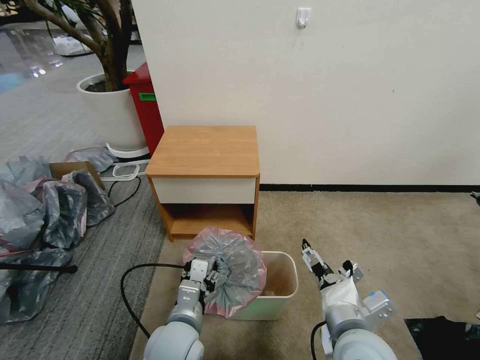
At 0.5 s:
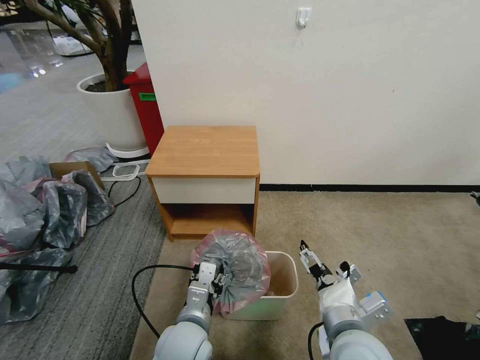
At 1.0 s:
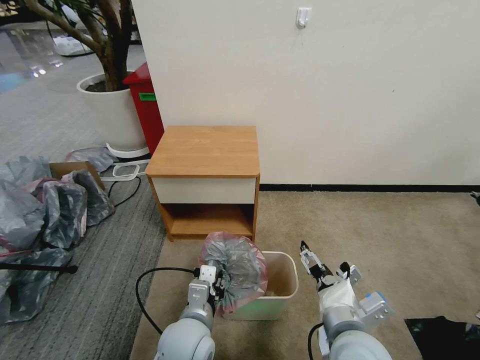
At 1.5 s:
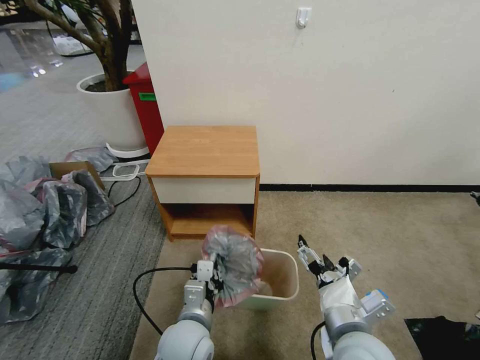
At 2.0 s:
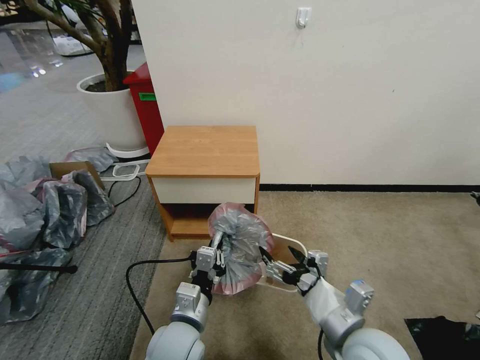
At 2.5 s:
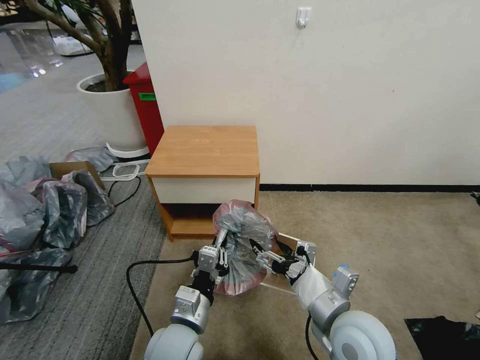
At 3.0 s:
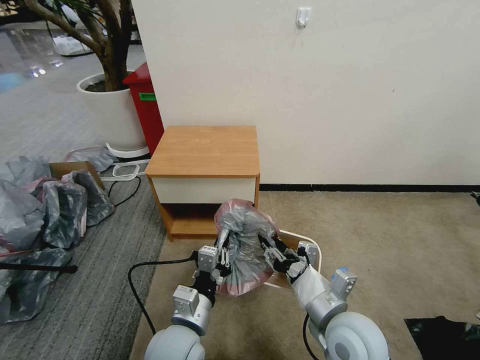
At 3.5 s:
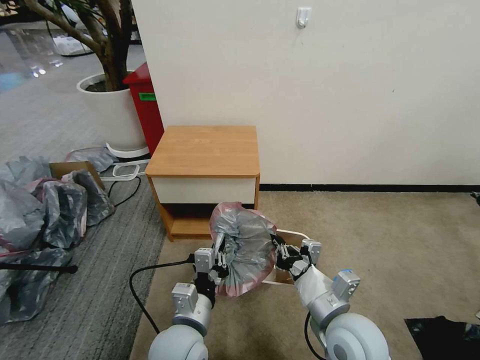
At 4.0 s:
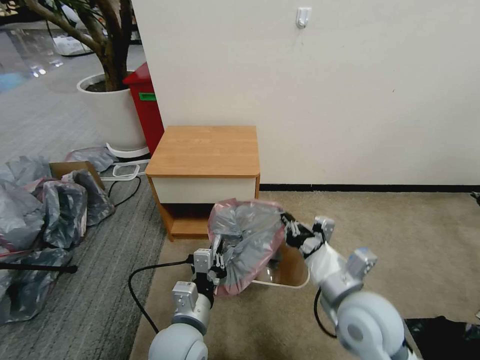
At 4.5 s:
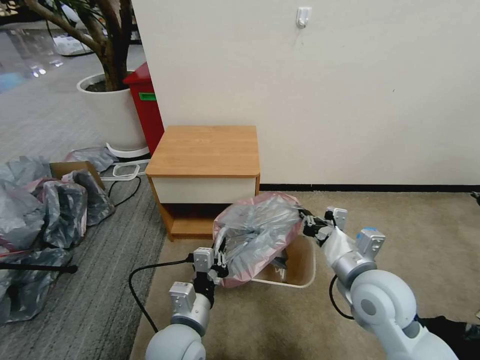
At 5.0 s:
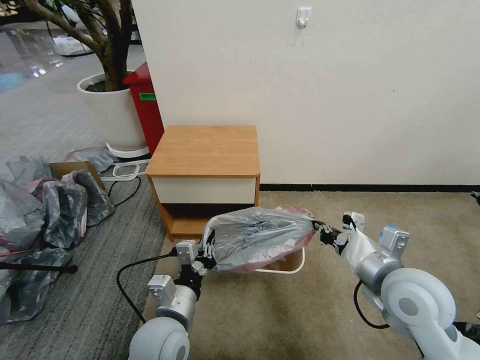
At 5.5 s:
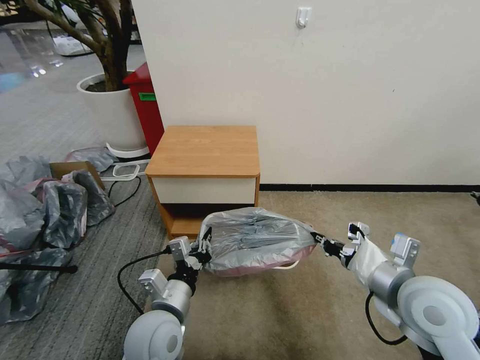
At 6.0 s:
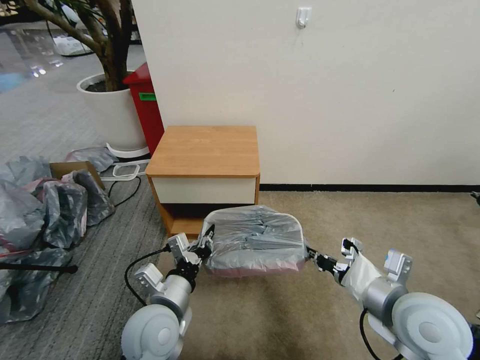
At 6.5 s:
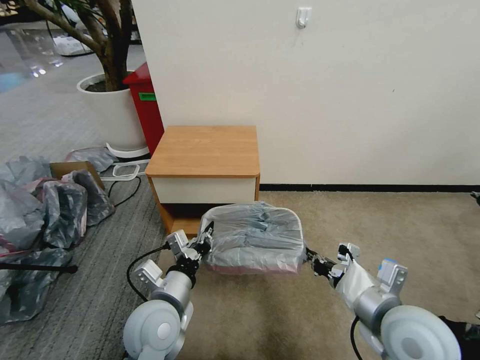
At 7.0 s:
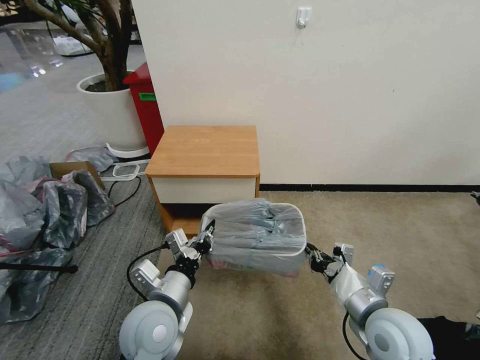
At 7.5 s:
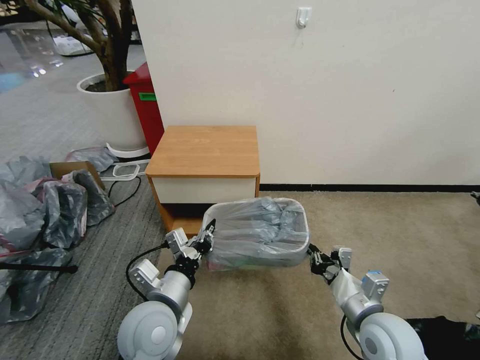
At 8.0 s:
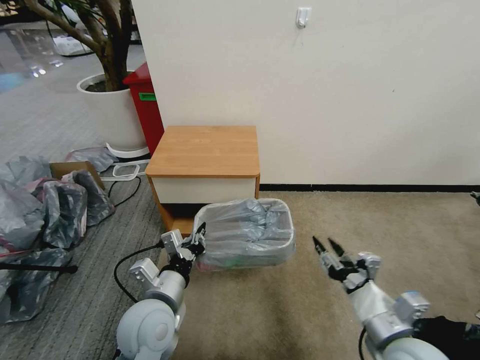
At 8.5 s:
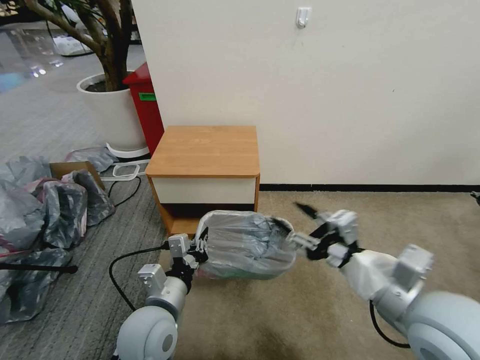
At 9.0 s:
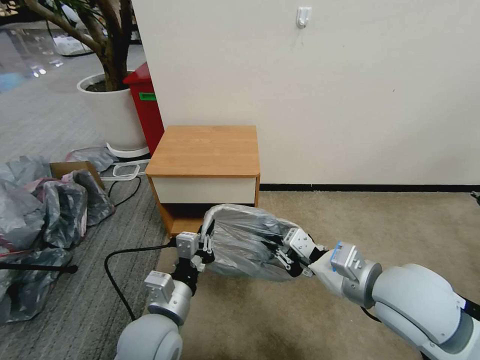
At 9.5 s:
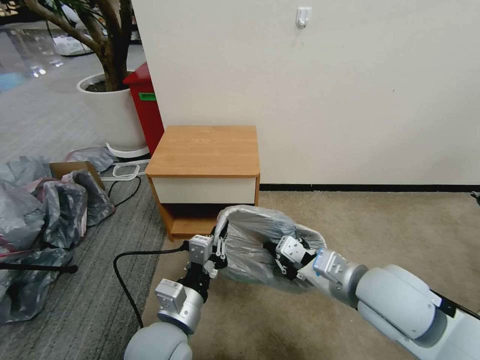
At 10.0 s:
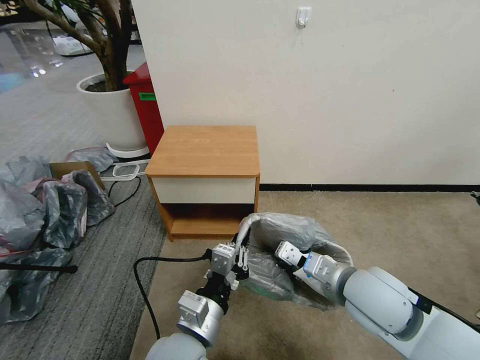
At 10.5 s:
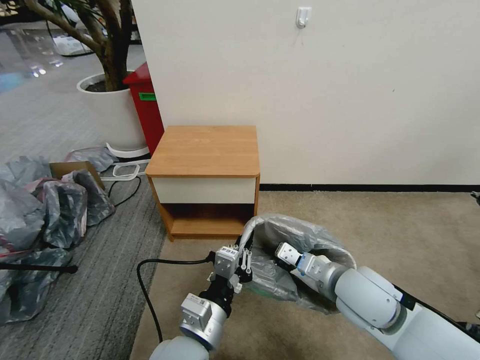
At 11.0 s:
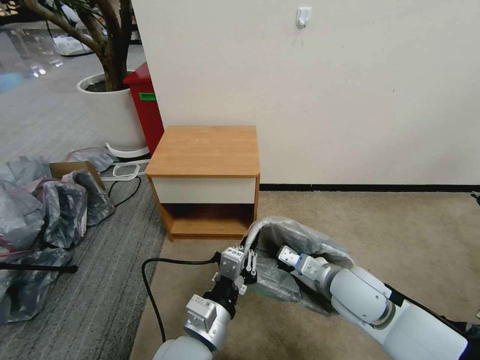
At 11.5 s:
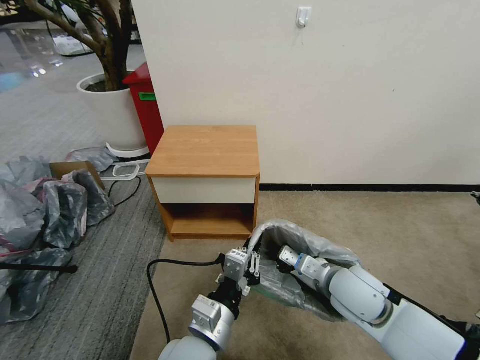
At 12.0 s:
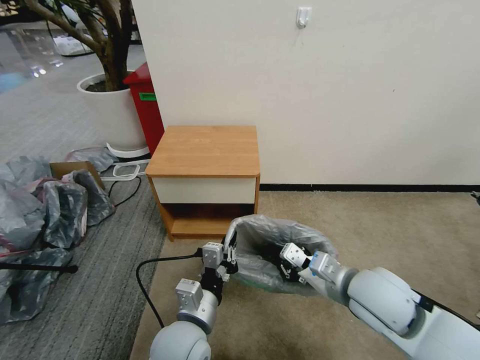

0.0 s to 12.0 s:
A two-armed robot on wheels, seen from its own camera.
Task of the whole recording: Pick up the garbage bag from the table and place it over the trash can.
0.0 to 2.0 s: The left gripper closes.
2.0 to 4.0 s: The right gripper changes place by some 5 cm, and closes.
4.0 to 6.0 s: The right gripper goes about 10 cm to the right, while the left gripper ends up some 5 cm from where it was.
6.0 to 8.0 s: The right gripper travels downward and backward by about 10 cm, and opens.
8.0 to 10.0 s: The right gripper heads forward, upward and to the left, covering some 15 cm, and closes up. The left gripper is displaced to the right and backward by some 10 cm.

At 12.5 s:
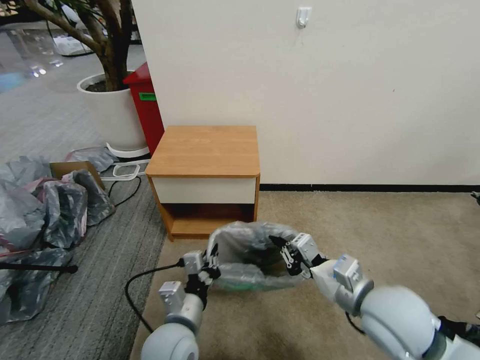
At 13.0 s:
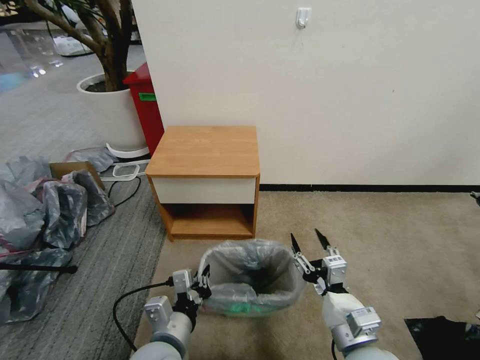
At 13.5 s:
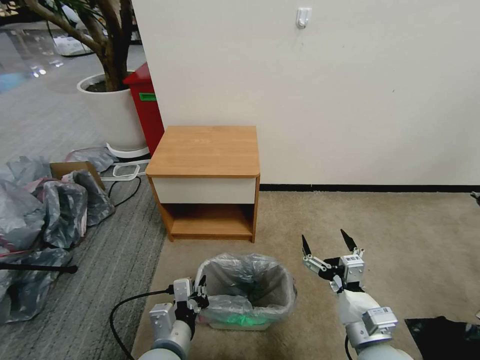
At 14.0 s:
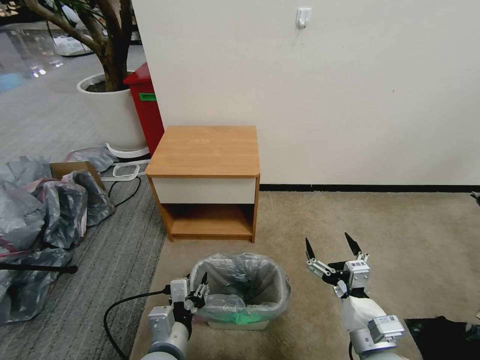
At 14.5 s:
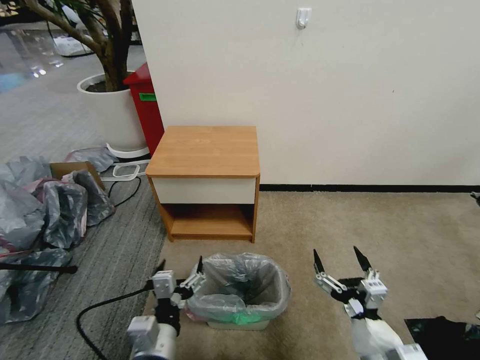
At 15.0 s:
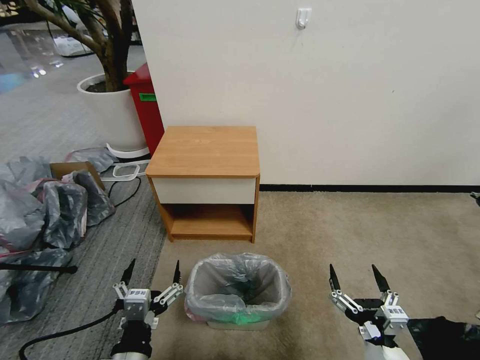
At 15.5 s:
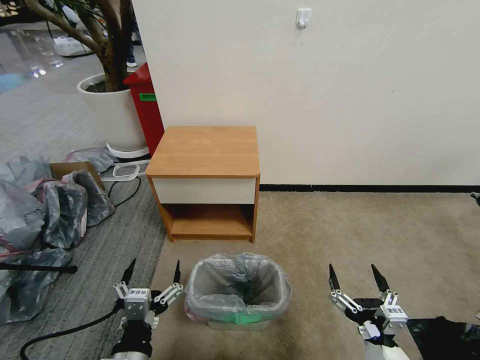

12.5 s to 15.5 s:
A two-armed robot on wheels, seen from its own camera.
Task of the whole recording: Pick up the garbage bag from the table and place it over the trash can.
12.5 to 14.0 s: The right gripper goes roughly 10 cm downward and backward, and opens, while the left gripper opens.
14.0 to 15.5 s: Both grippers move backward, approximately 5 cm. The left gripper opens its fingers.
